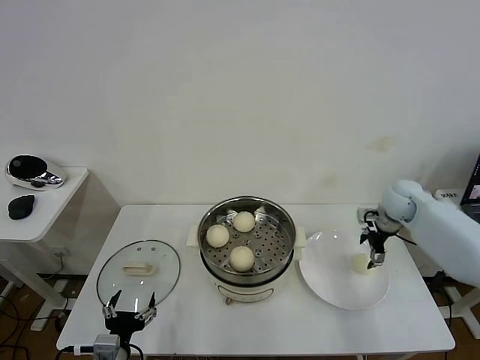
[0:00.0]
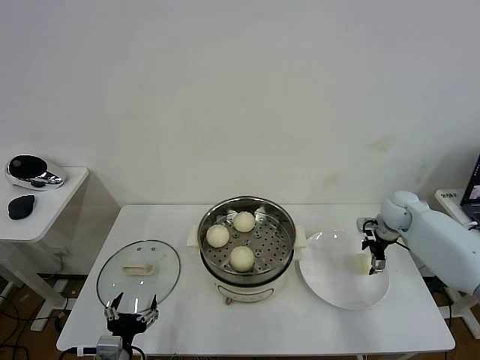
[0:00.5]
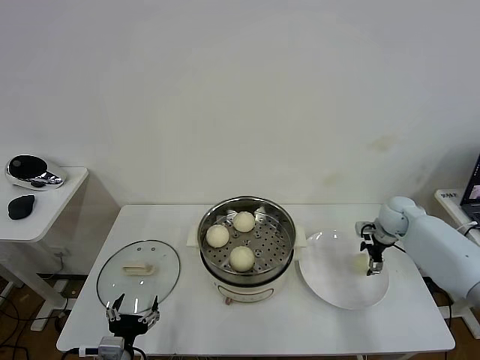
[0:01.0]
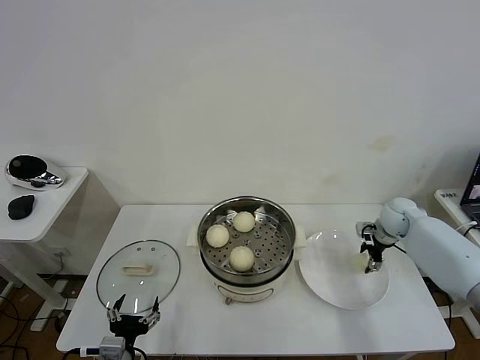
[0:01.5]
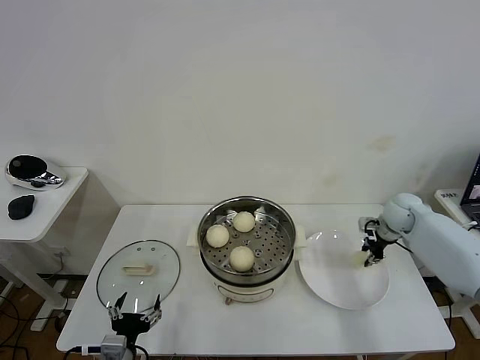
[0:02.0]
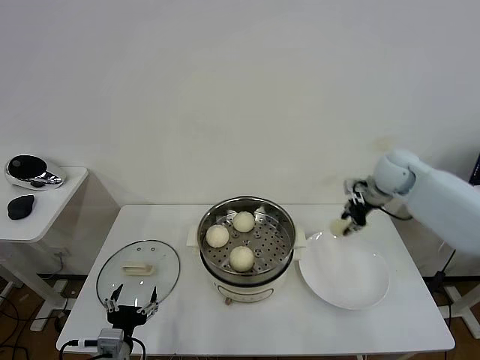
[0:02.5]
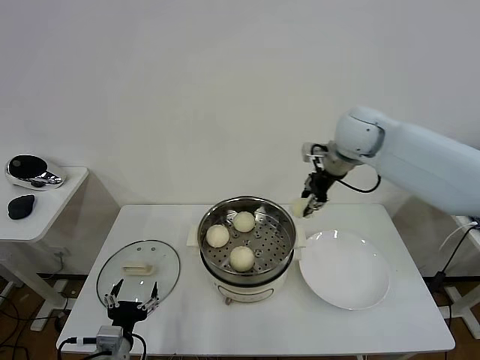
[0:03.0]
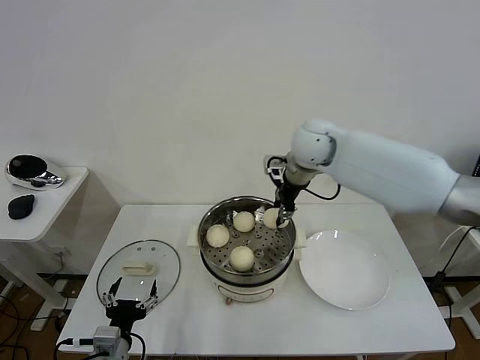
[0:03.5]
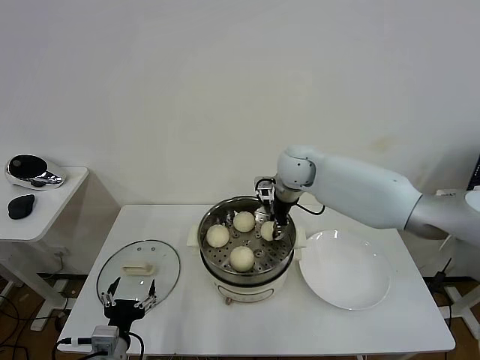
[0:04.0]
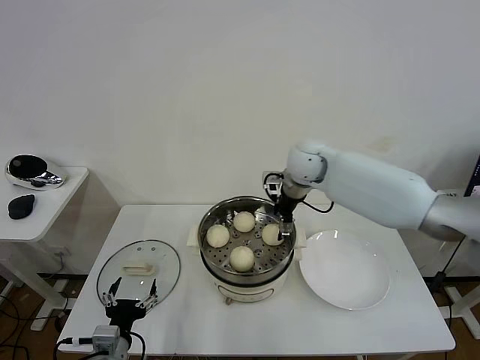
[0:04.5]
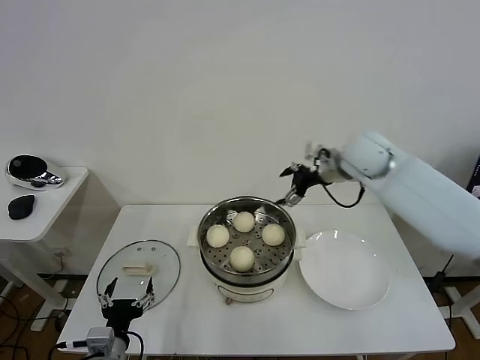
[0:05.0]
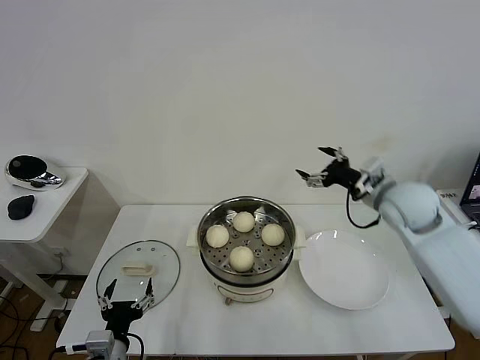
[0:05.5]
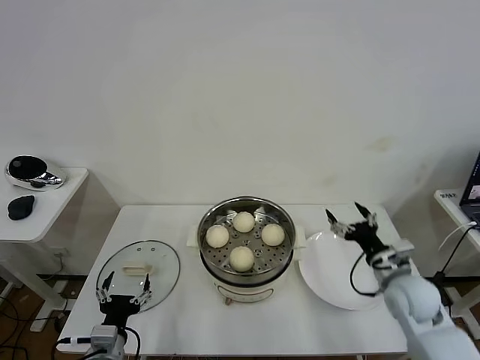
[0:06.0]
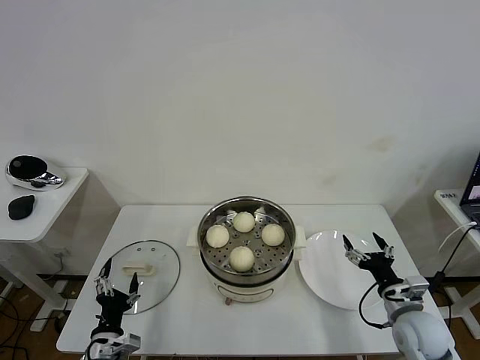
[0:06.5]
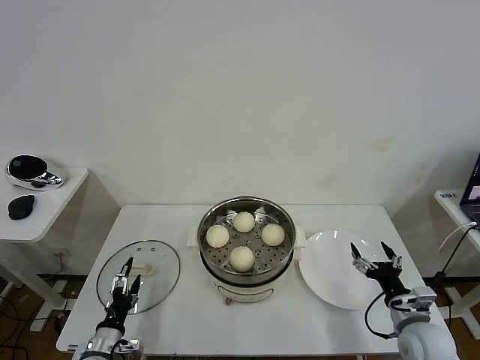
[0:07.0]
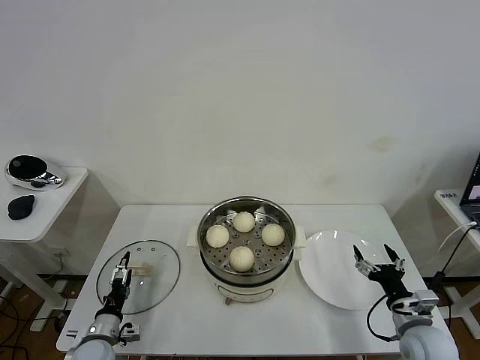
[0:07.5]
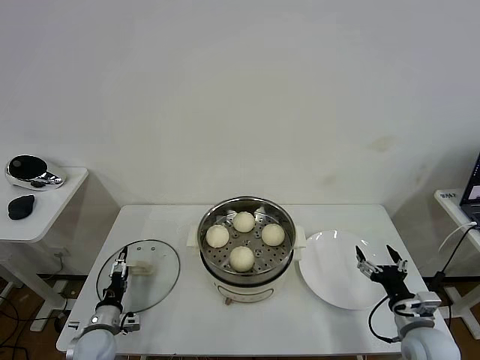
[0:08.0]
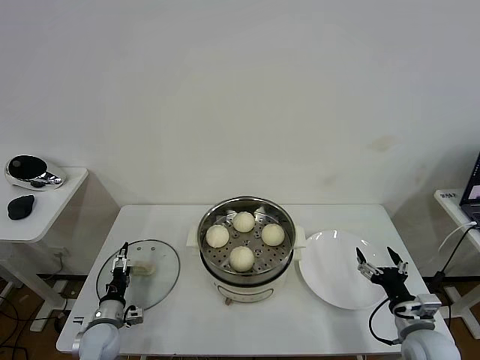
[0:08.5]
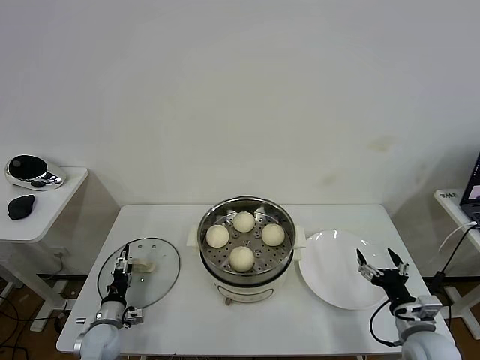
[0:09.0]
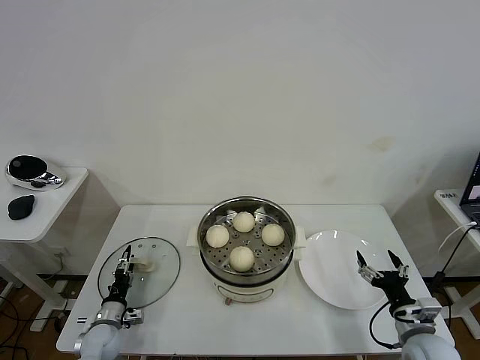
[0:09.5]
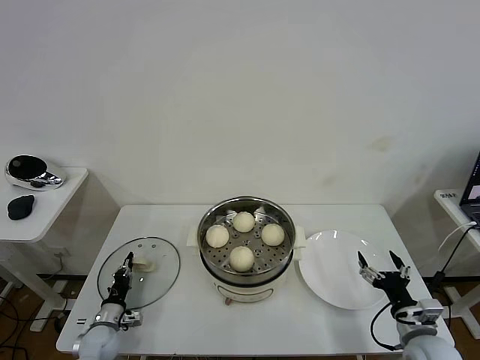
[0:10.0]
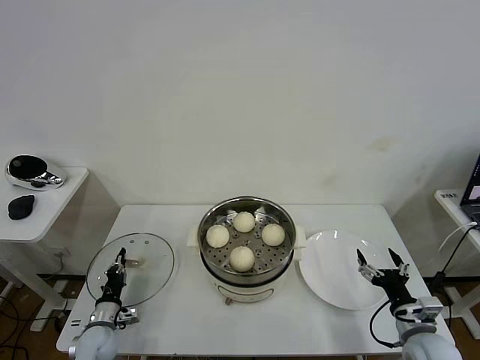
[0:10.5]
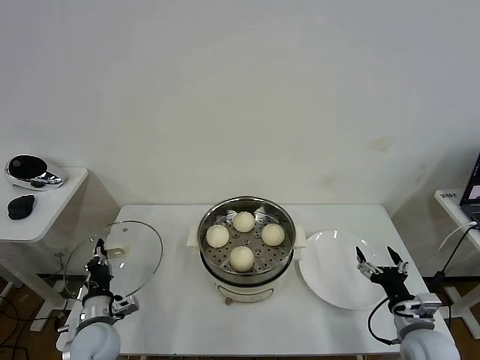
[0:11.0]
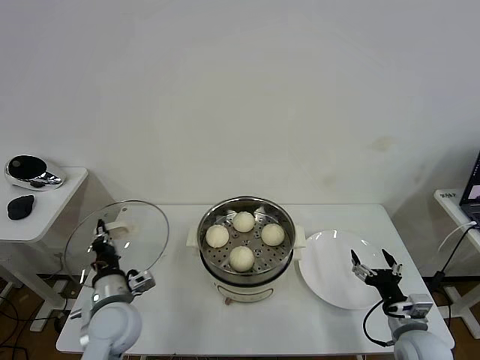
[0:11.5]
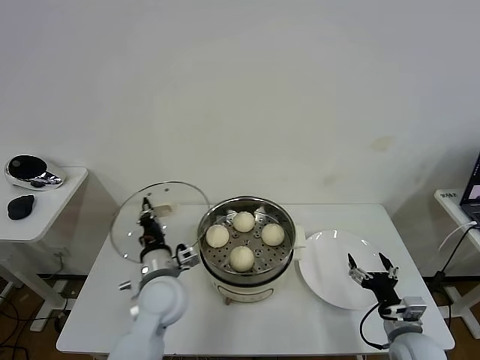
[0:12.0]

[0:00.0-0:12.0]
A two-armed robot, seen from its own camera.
Step, 0:02.0 to 0:04.0: Place the baozi on the steamer with right gripper.
Step, 0:04.5 to 0:10.0: Grasp the pot lid with left gripper.
0:00.0 to 0:02.0: The right gripper closes up.
0:02.0 to 0:04.0: The right gripper travels to the left and upward by roughly 30 cm.
0:04.0 to 0:06.0: The right gripper moves backward, to the right and downward, roughly 35 cm, and opens its fingers.
0:06.0 to 0:08.0: The right gripper heads backward and downward, covering about 10 cm. Meanwhile the left gripper moves downward, forward and to the left, roughly 15 cm.
0:08.0 to 0:10.0: The left gripper is displaced downward by some 5 cm, and closes.
0:10.0 to 0:12.0: The left gripper travels upward and to the right by some 30 cm.

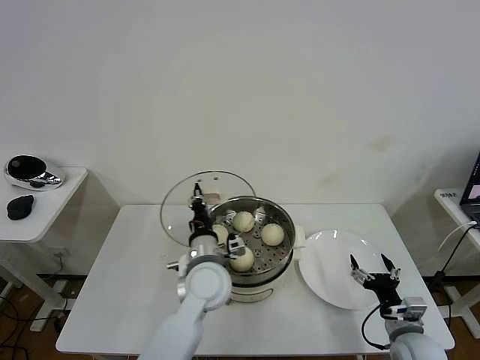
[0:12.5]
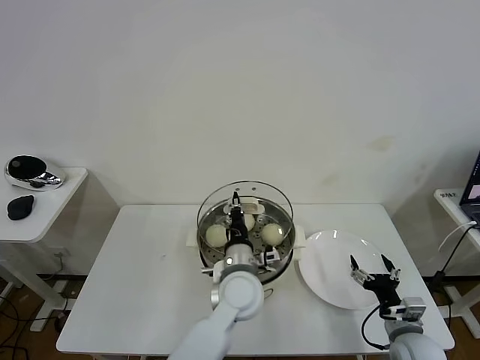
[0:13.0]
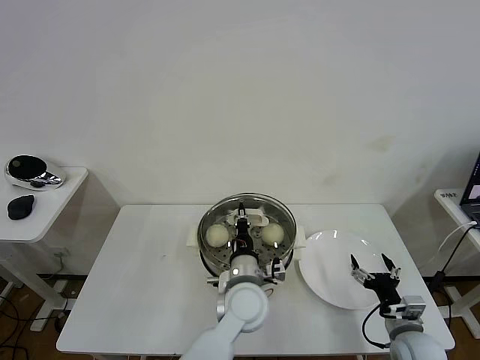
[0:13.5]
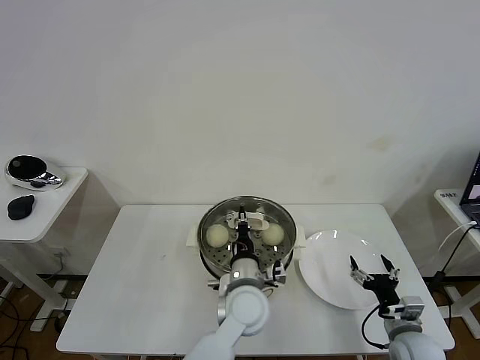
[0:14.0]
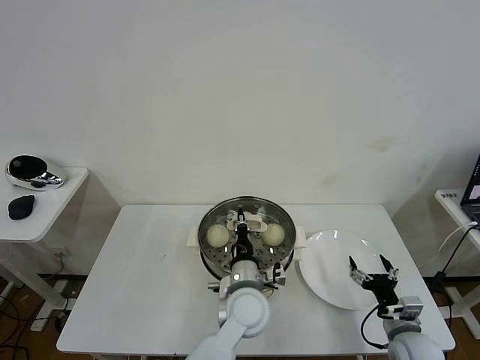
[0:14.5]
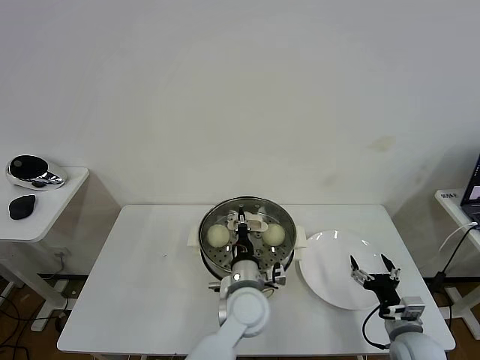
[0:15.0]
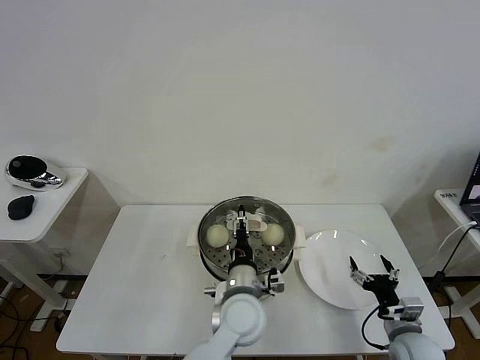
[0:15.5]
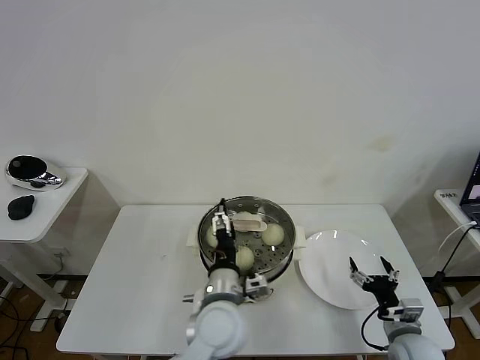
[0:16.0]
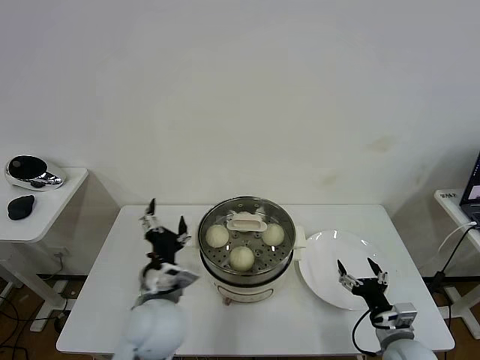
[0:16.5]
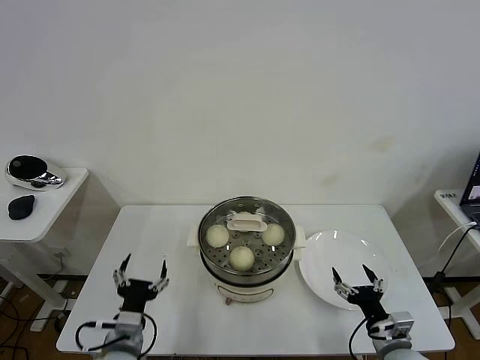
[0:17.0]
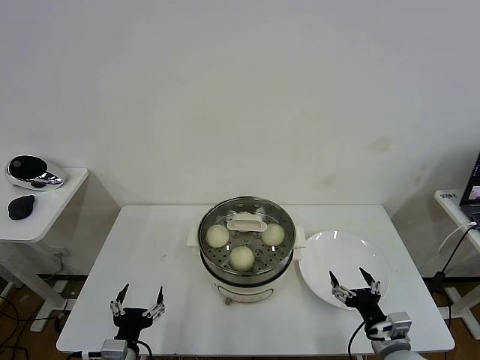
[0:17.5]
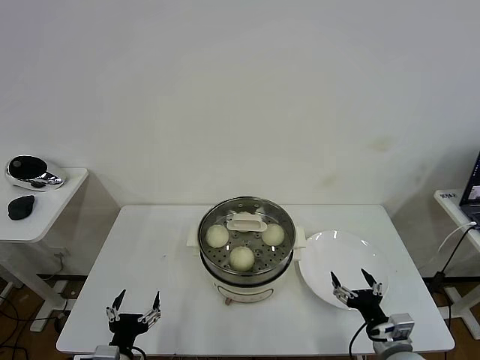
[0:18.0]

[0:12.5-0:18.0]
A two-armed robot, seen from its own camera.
Step, 0:12.5 to 0:15.0: Place the pot lid on the steamer with left gripper.
0:12.5 to 0:14.5: The left gripper shifts some 10 cm to the right.
0:14.5 to 0:16.0: The left gripper ends up about 5 cm from where it was, and opens its fingers.
0:16.0 to 0:18.0: The right gripper shifts by some 5 cm, while the left gripper moves to the left, backward and downward, about 30 cm.

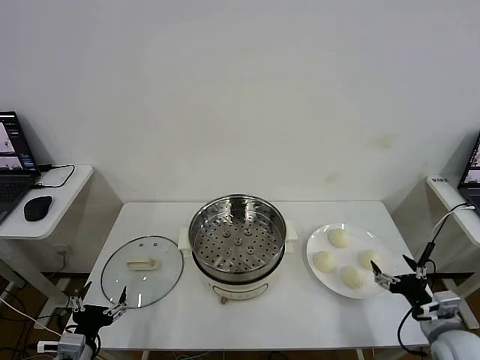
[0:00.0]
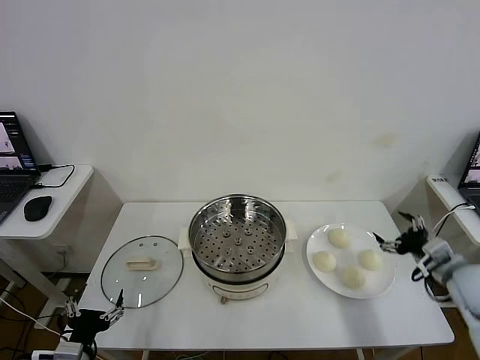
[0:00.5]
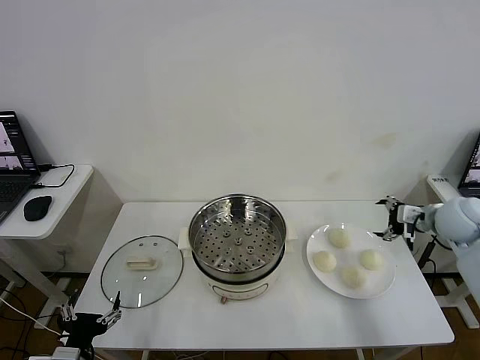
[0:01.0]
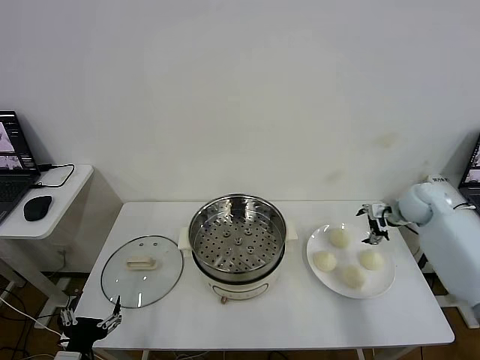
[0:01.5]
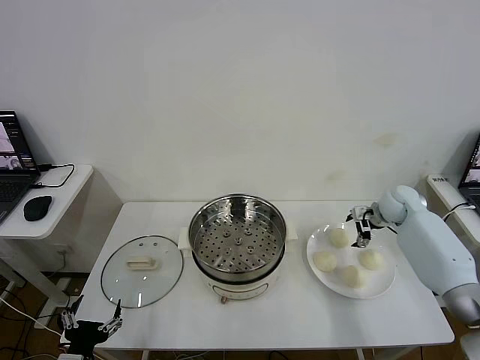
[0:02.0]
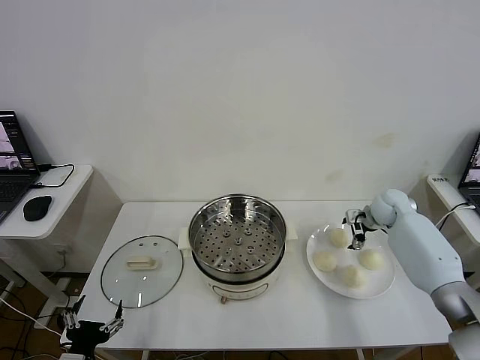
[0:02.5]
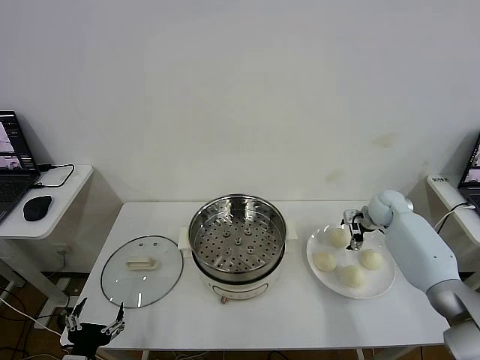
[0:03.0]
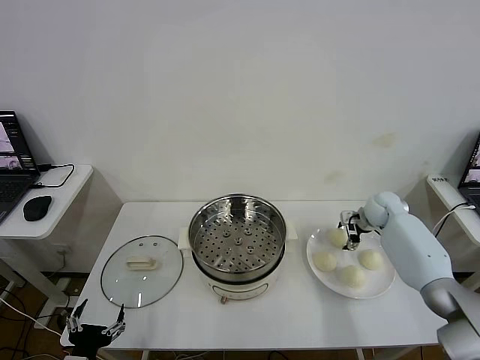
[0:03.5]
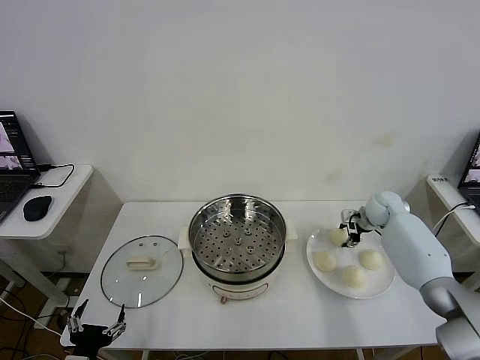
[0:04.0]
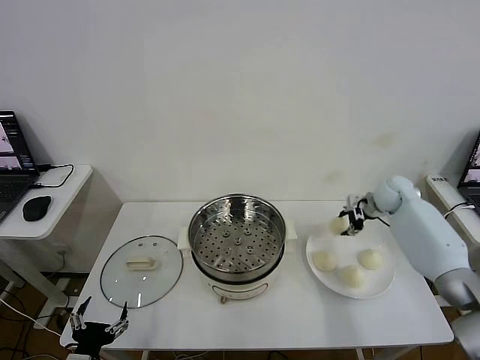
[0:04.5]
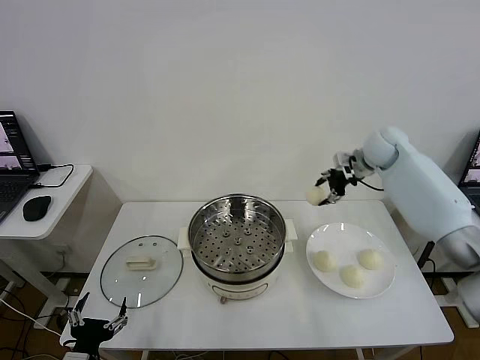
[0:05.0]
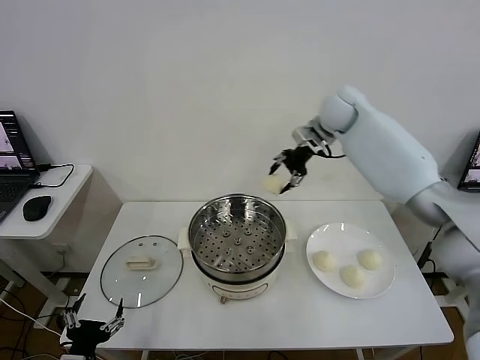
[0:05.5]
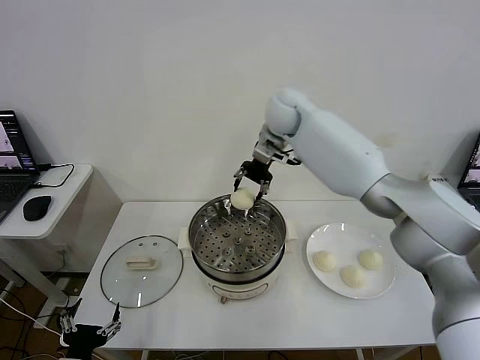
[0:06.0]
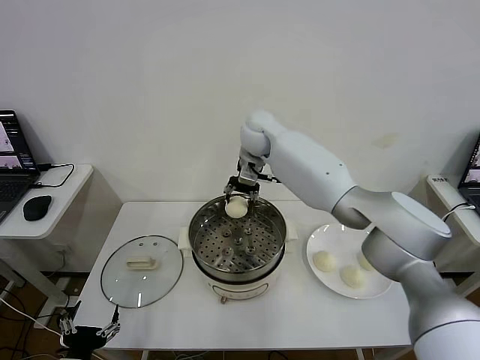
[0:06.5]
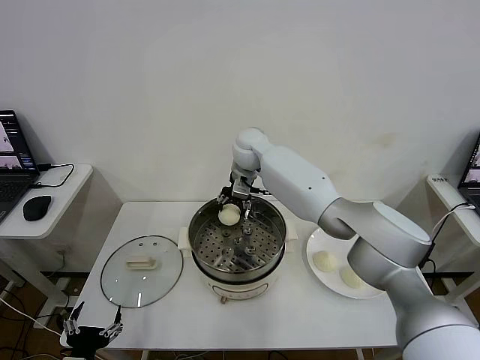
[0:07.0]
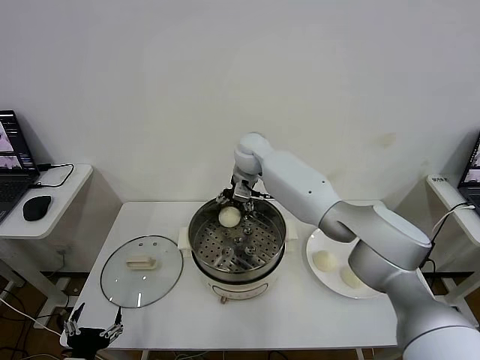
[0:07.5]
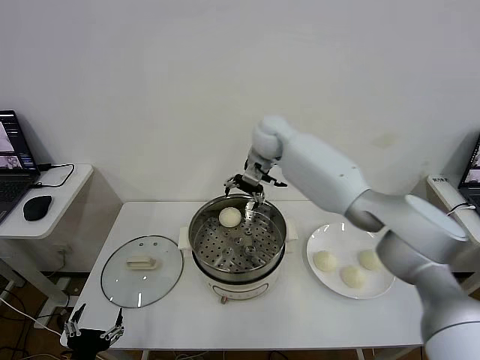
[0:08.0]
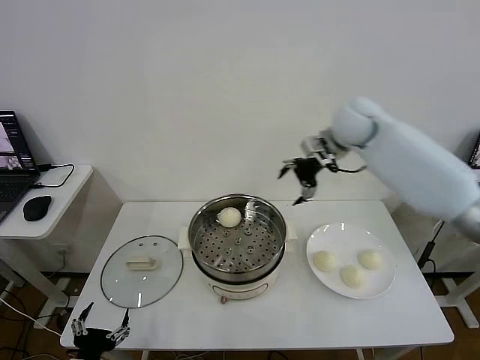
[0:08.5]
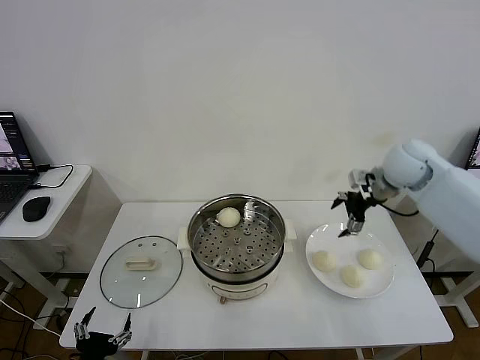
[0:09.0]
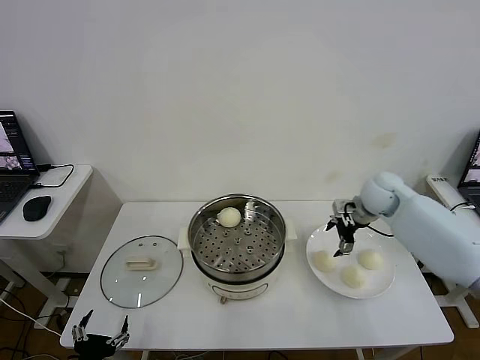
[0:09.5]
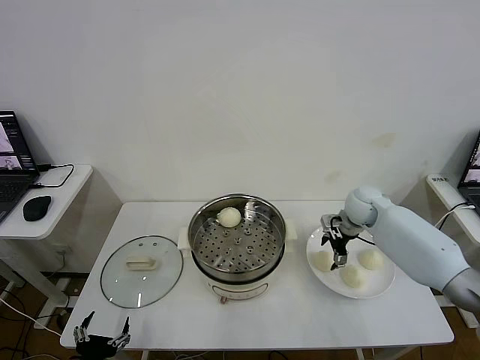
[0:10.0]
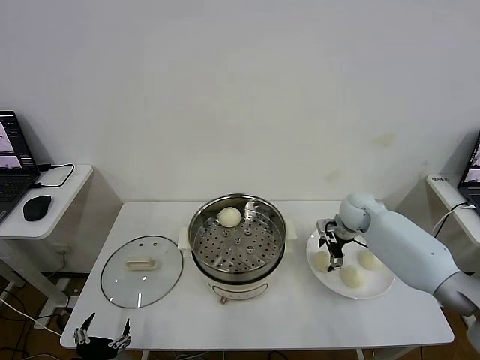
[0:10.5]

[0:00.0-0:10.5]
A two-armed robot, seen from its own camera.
Step, 0:00.0 to 0:04.0: Grasp the baozi in the plate with right gripper.
Step, 0:04.5 to 0:07.5: Place the baozi on the steamer with right gripper.
0:02.0 to 0:04.0: The right gripper closes its fingers.
0:04.0 to 0:06.5: The right gripper shifts about 40 cm to the left and upward.
0:06.5 to 0:08.5: The right gripper travels to the right by some 25 cm, and opens its fingers.
0:08.5 to 0:10.5: The right gripper travels downward by approximately 25 cm.
